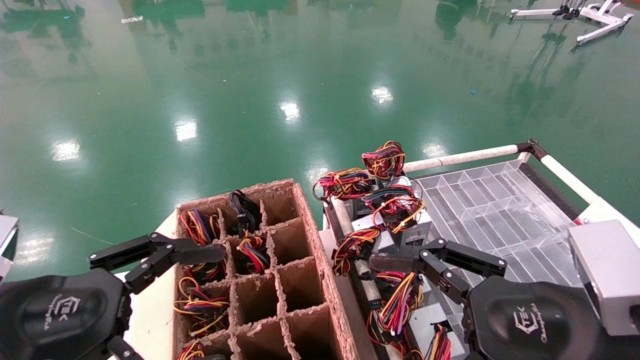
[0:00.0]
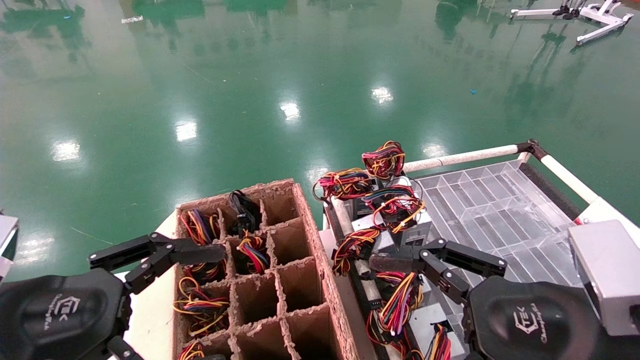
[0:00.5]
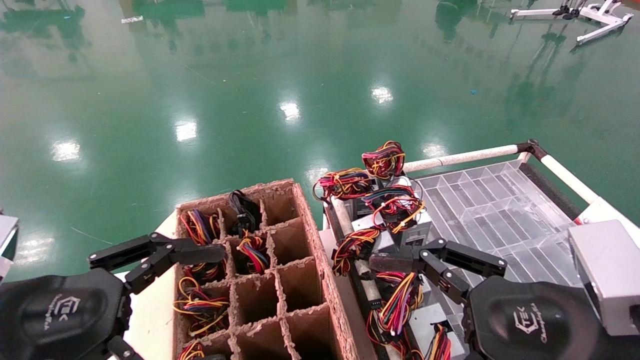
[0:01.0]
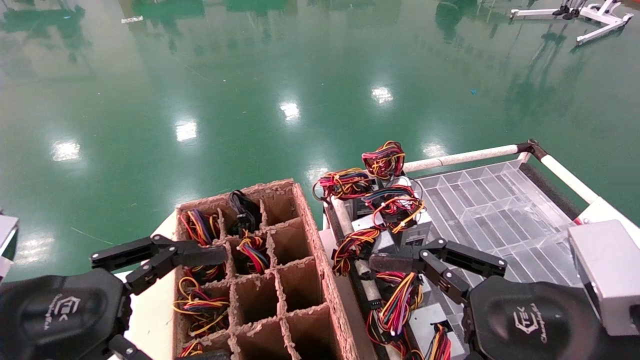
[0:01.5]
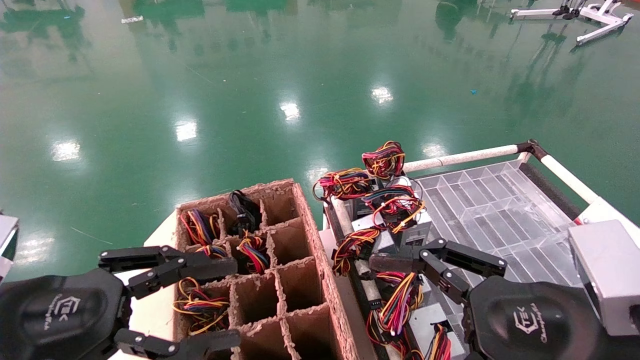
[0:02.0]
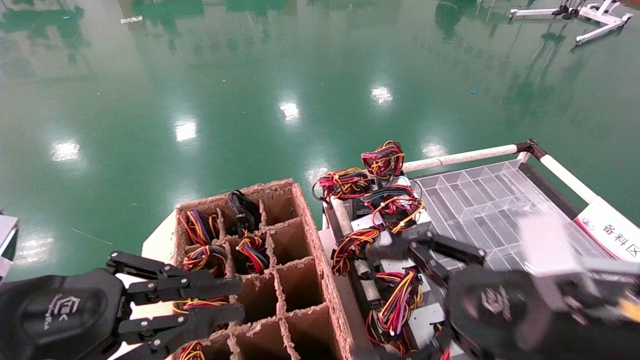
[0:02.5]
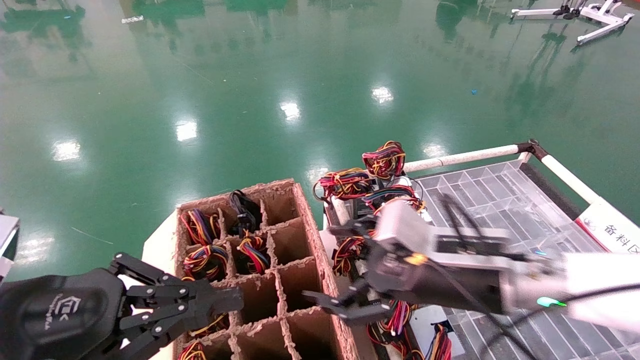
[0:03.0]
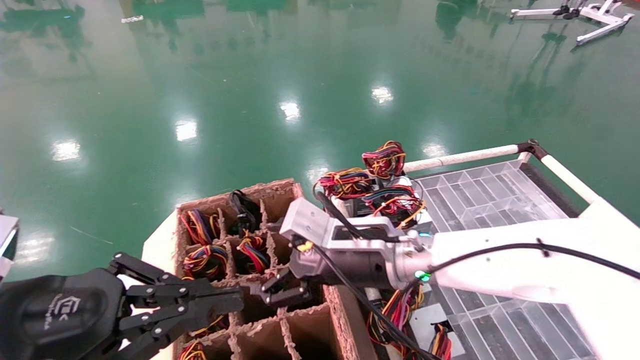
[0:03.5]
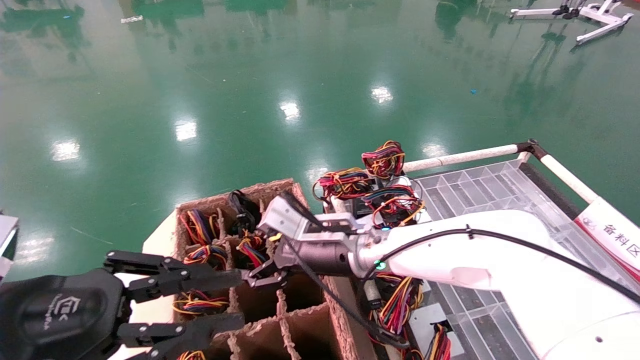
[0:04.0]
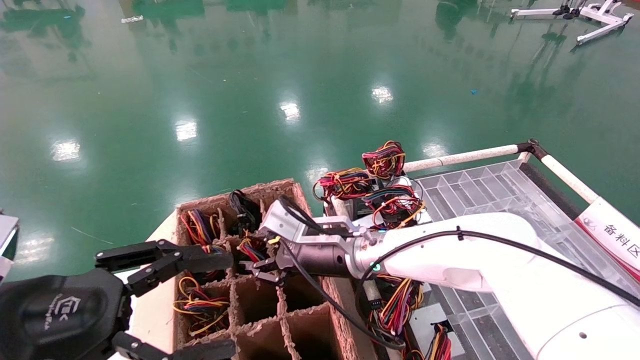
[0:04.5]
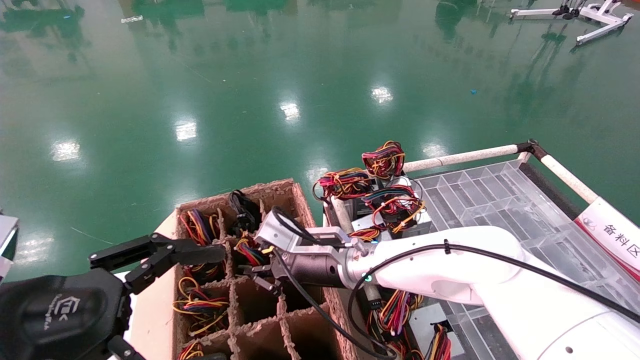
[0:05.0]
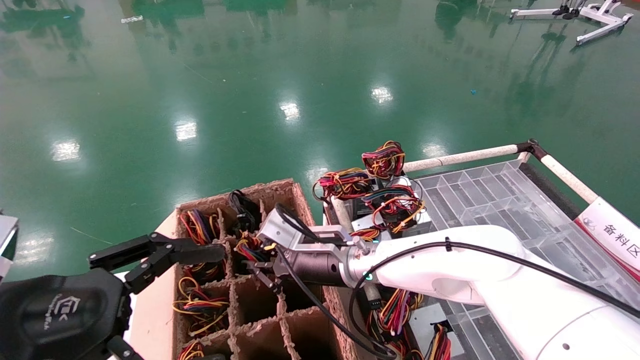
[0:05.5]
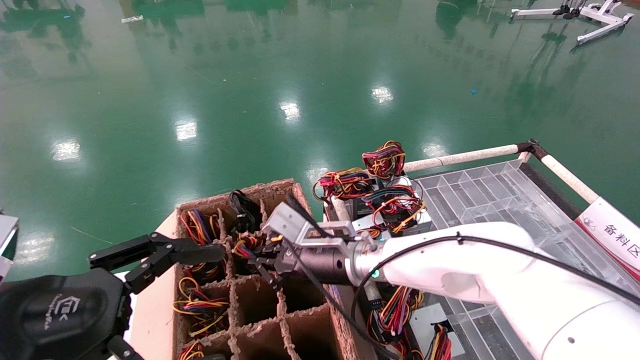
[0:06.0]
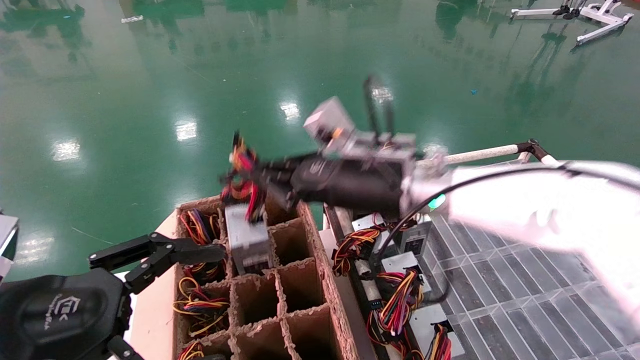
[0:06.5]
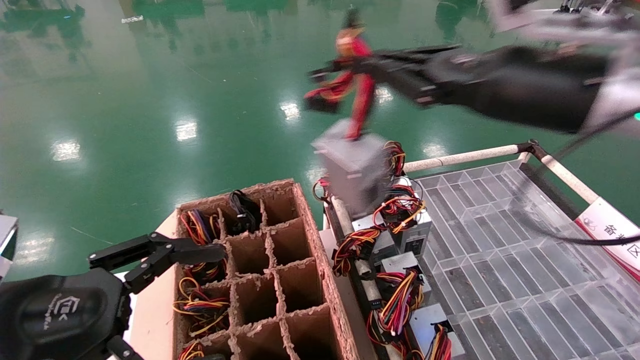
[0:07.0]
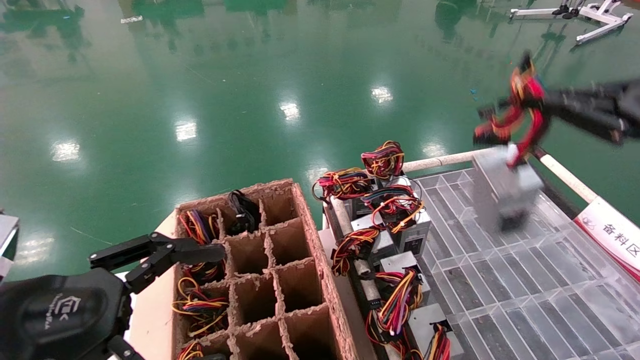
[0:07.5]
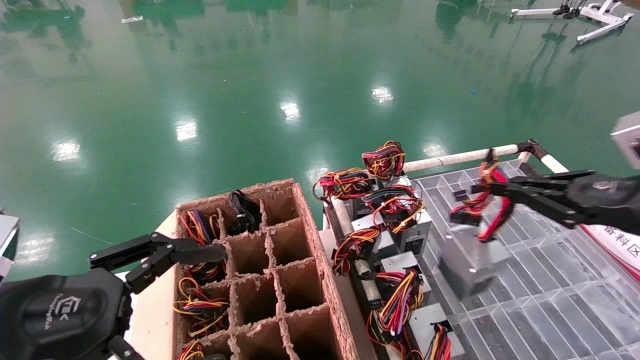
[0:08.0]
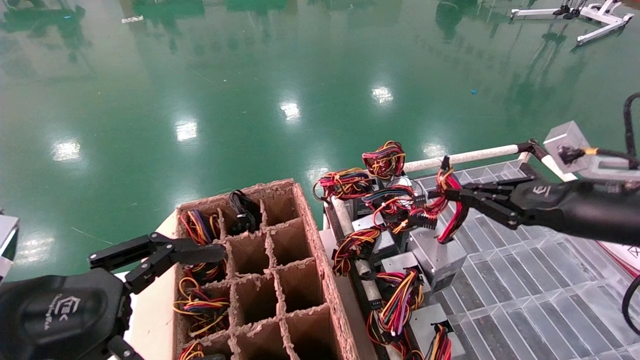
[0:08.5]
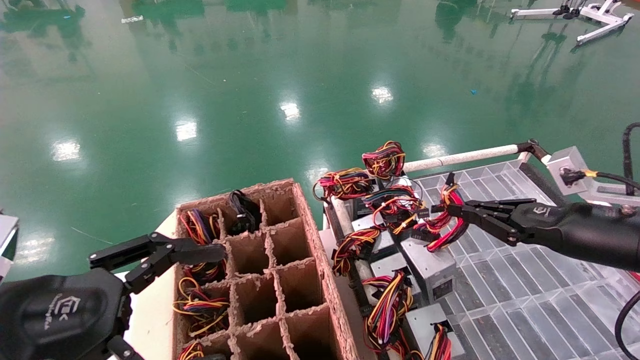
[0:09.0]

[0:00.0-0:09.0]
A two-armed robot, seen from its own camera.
Step, 0:03.0 to 0:05.5: Grab and lift the power supply from the large box.
0:00.0 to 0:02.0: Neither gripper changes place.
0:02.0 to 0:04.5: The left gripper closes, then opens again. The right gripper goes some 30 cm forward and to the left, and closes up.
0:04.5 to 0:07.0: The right gripper moves upward, to the right and backward, some 30 cm, and closes up. Meanwhile the left gripper opens.
0:07.0 to 0:09.0: The right gripper moves downward and to the right, roughly 20 cm.

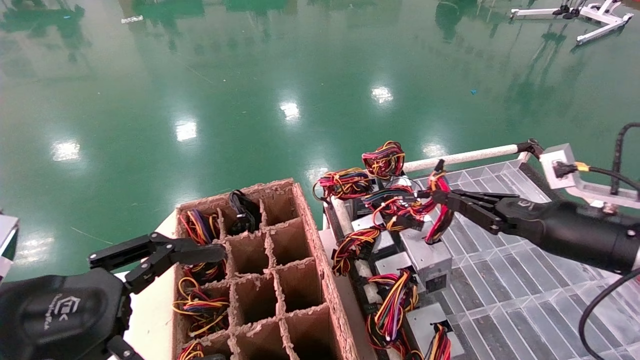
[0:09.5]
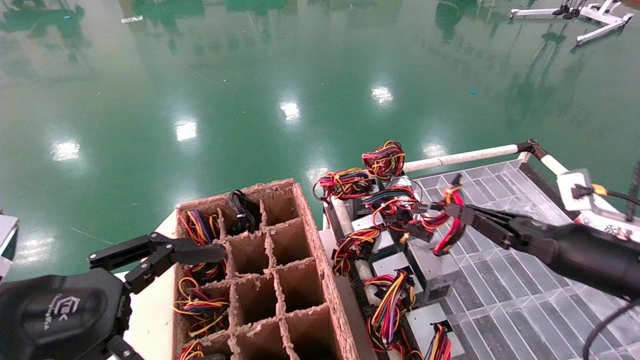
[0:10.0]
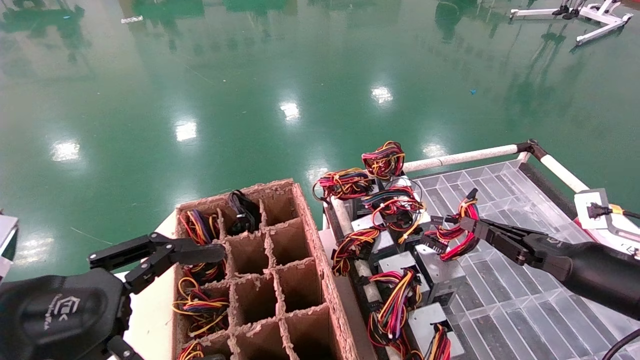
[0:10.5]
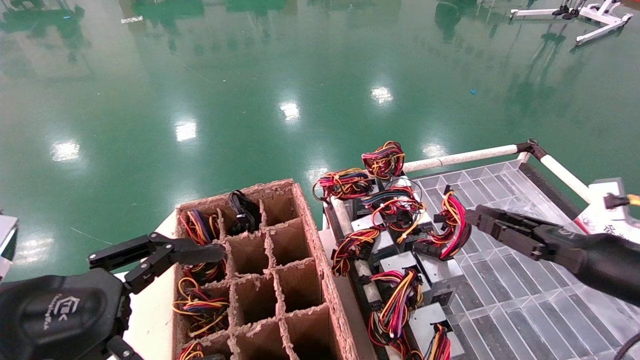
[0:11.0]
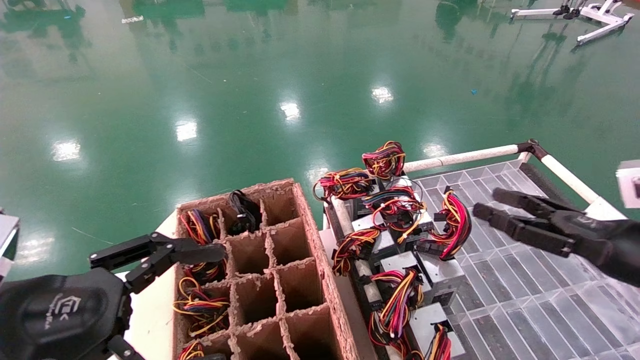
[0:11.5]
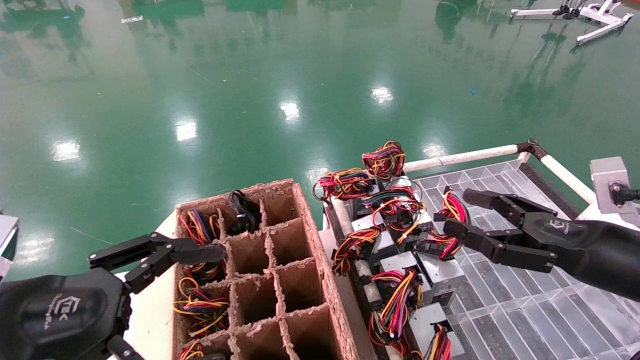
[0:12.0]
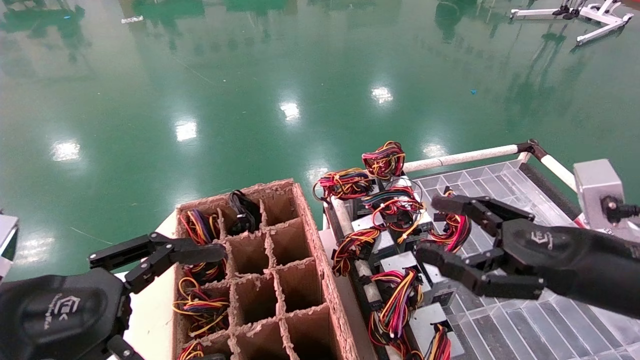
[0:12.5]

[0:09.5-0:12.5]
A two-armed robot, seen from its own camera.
0:09.5 to 0:11.0: The right gripper shifts by approximately 5 cm.
0:11.0 to 0:12.5: The right gripper travels to the left and backward by approximately 10 cm, and opens up.
